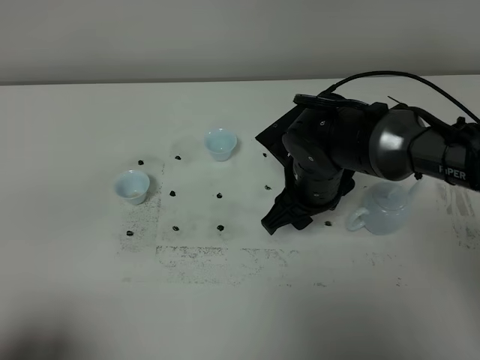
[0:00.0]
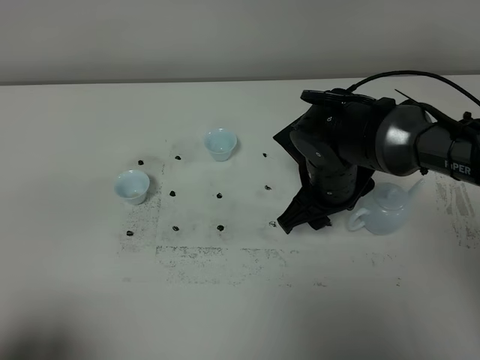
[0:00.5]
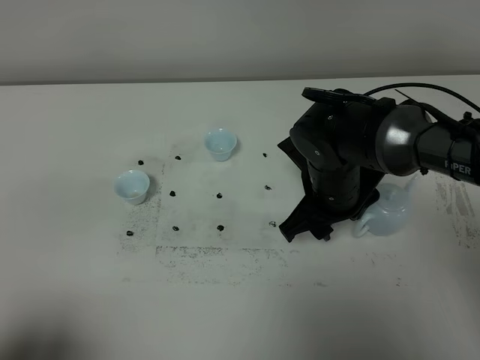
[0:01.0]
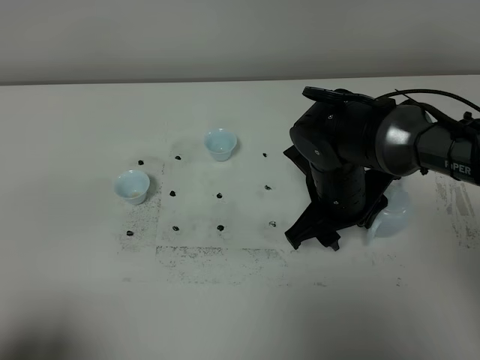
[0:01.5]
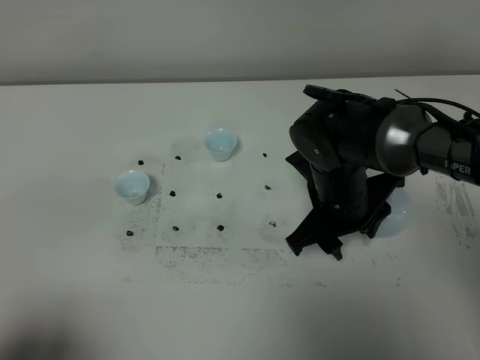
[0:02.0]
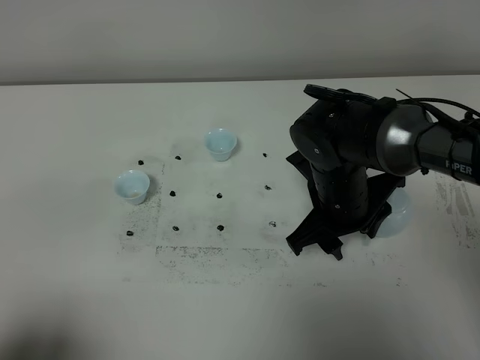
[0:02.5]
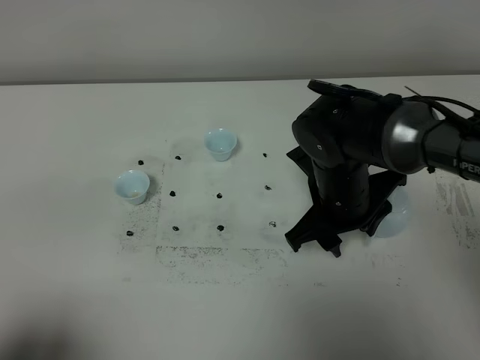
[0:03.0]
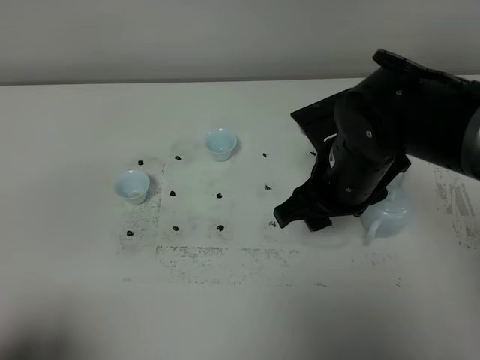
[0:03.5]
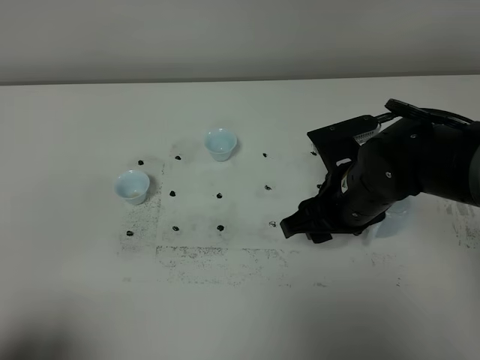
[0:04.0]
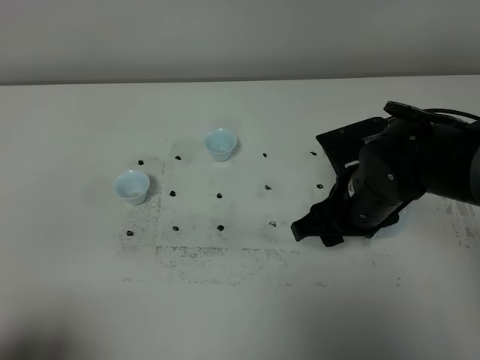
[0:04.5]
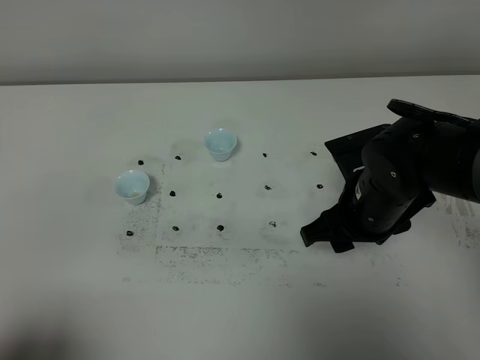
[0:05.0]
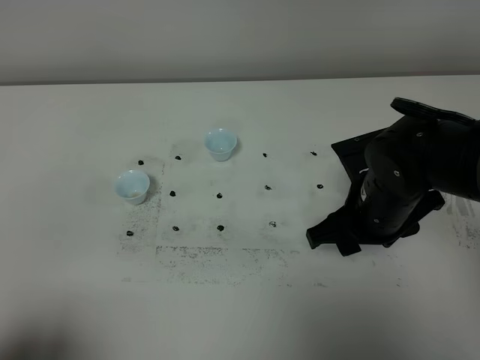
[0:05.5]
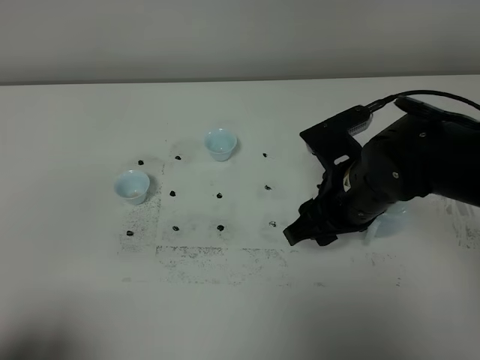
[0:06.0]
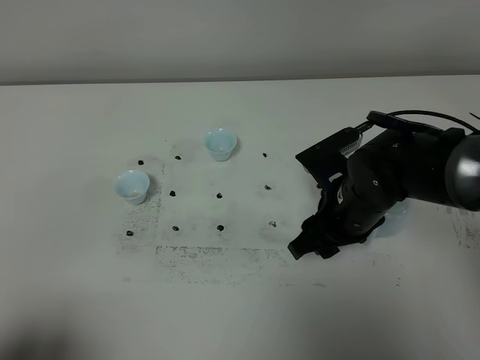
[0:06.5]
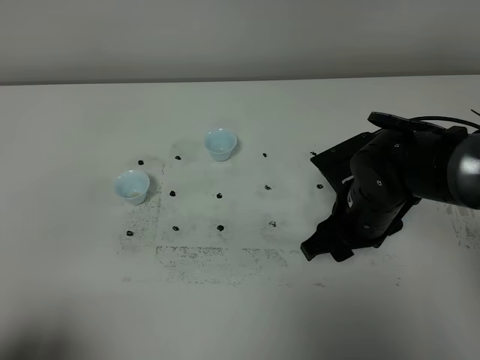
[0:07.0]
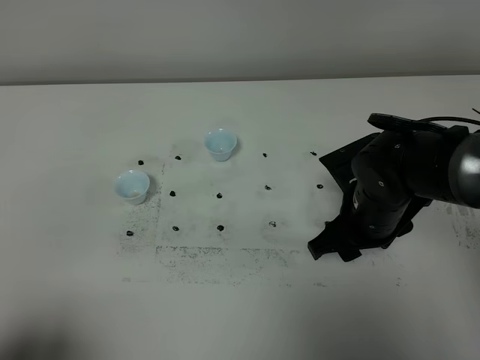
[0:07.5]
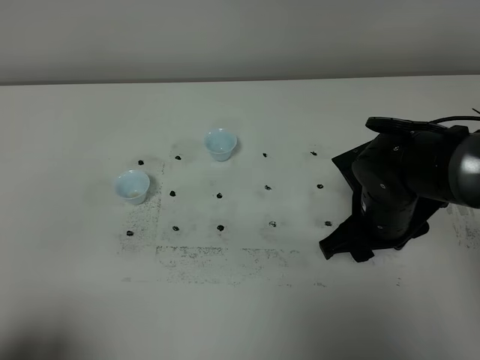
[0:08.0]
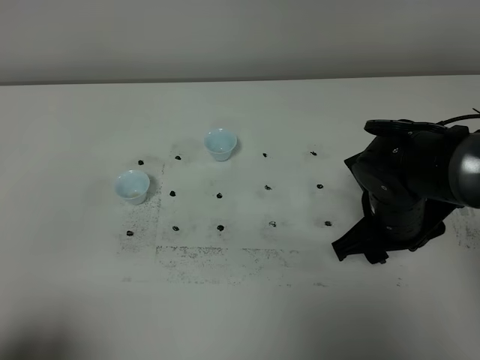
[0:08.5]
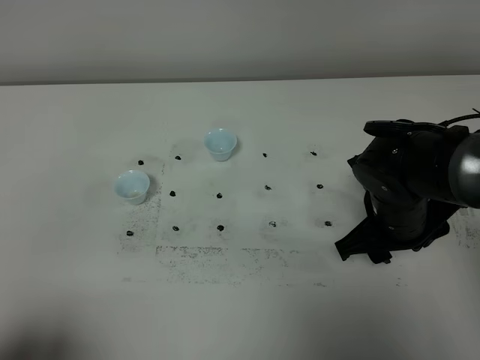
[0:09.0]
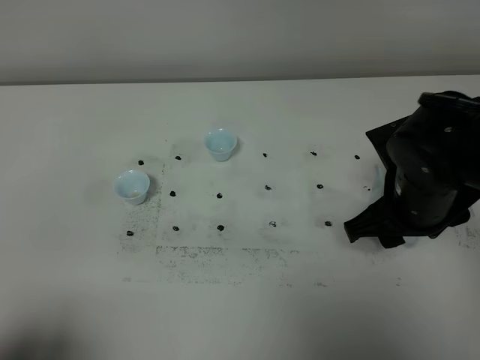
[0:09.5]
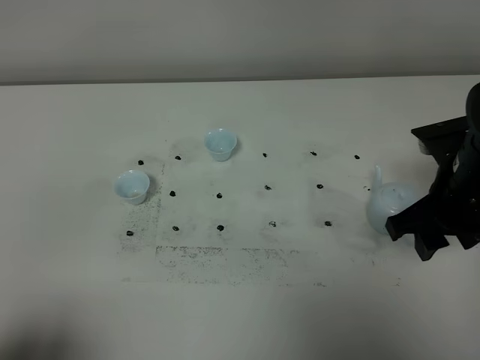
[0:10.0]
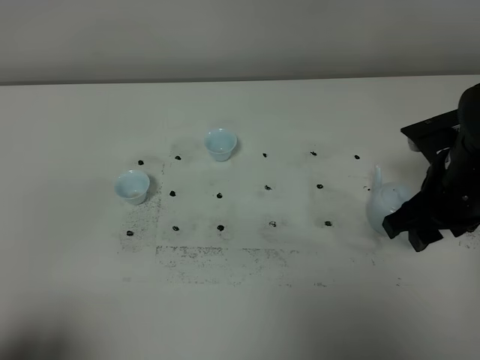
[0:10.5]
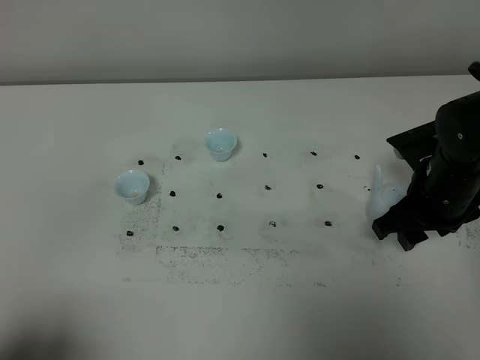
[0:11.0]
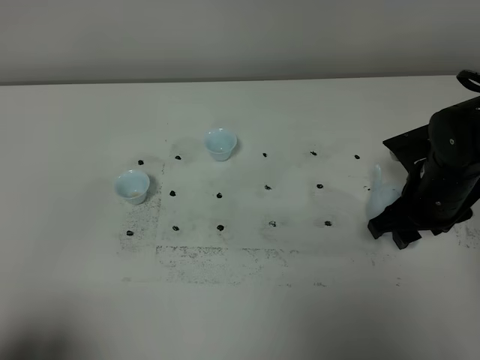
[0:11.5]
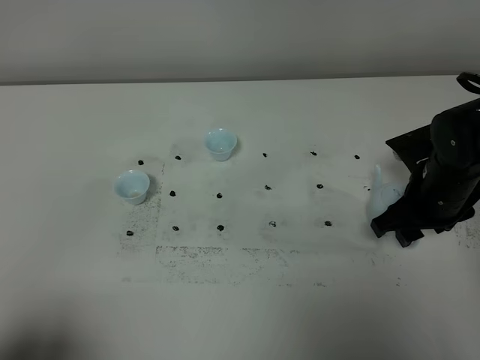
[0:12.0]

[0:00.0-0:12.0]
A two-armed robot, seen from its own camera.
Task of the whole recording: grasp the blue porcelain teapot and pour the tea into the two blue porcelain teacups one by one, put the blue porcelain teapot back in its original place.
0:00.0 to 0:02.0: The grippers move only a little.
0:04.0 to 0:06.0: There are only small adjustments of the grippers.
0:06.0 to 0:08.0: The right gripper changes place by about 5 cm.
0:08.0 to 0:10.0: The right gripper moves upward and to the right, roughly 10 cm.
0:10.0 to 0:12.0: The right gripper moves downward and forward, approximately 10 cm.

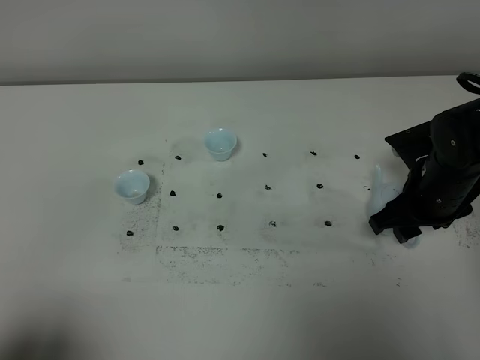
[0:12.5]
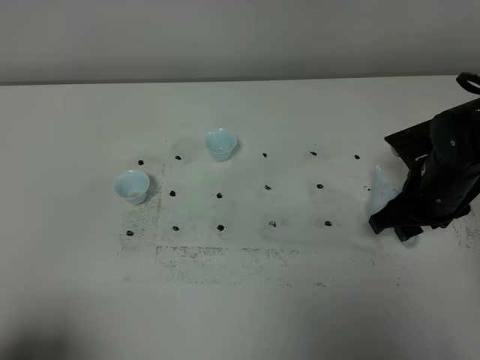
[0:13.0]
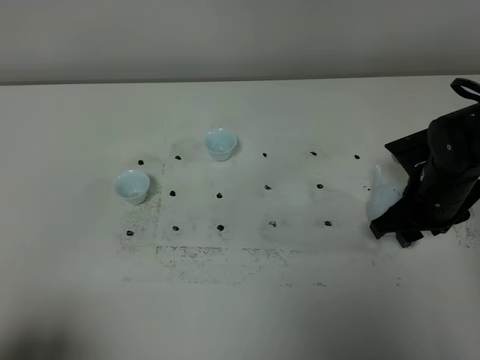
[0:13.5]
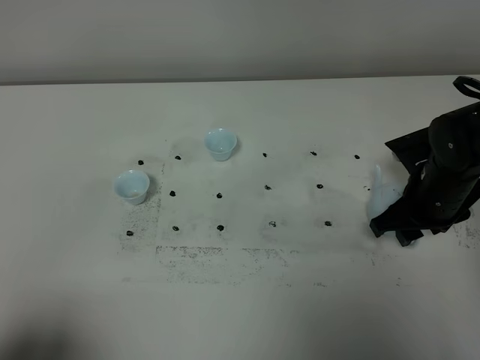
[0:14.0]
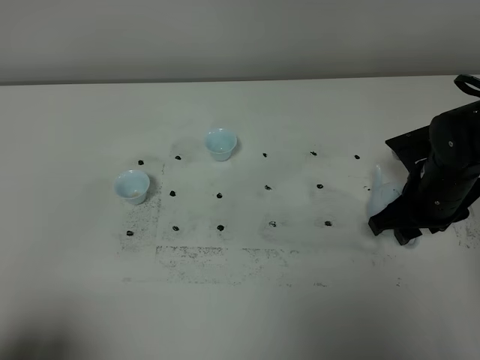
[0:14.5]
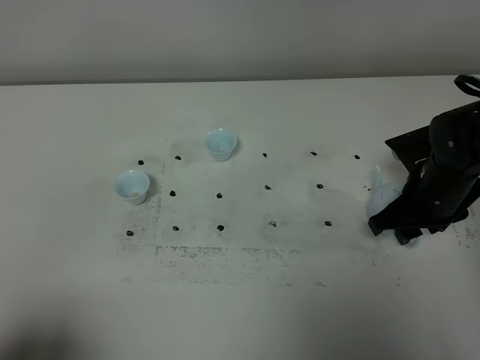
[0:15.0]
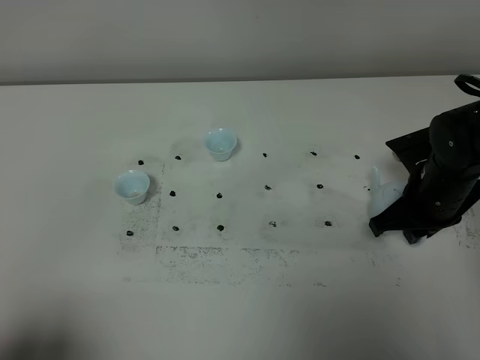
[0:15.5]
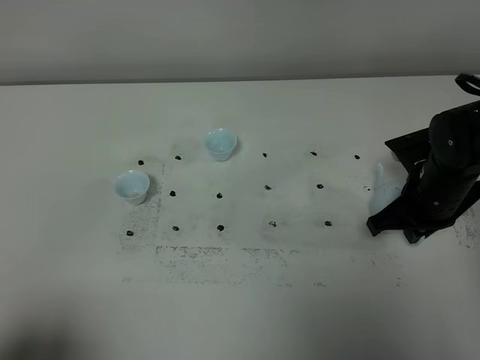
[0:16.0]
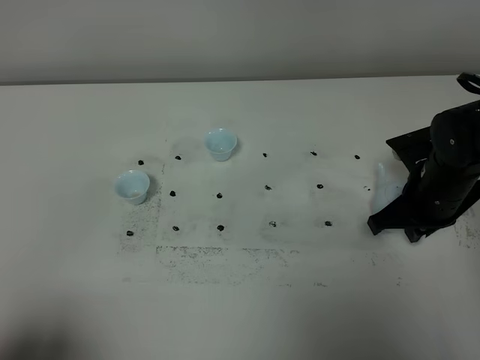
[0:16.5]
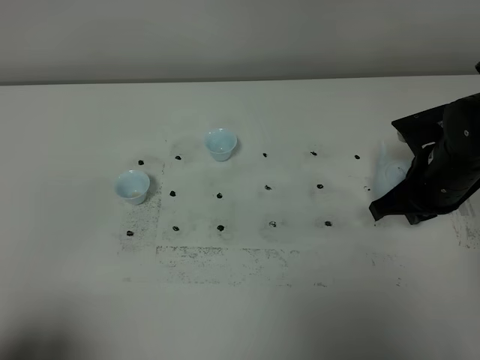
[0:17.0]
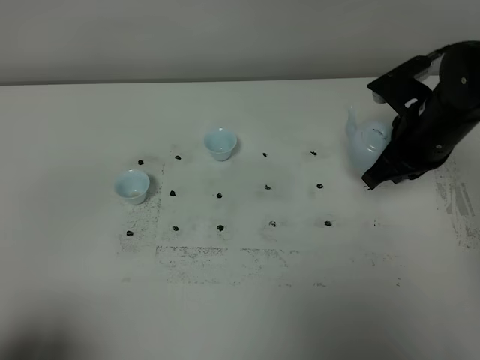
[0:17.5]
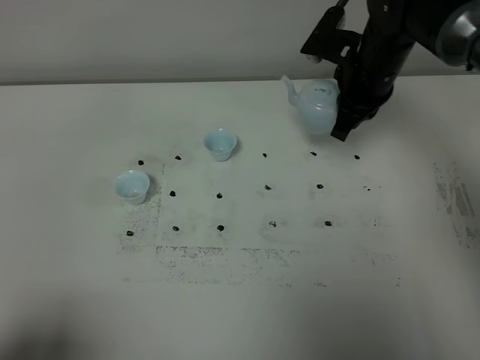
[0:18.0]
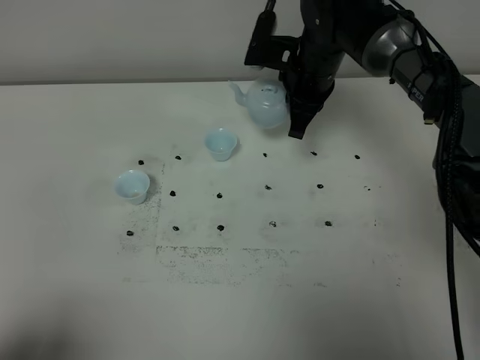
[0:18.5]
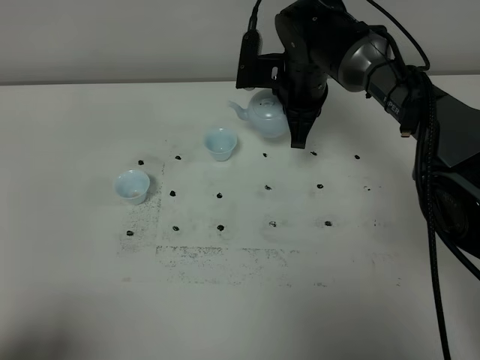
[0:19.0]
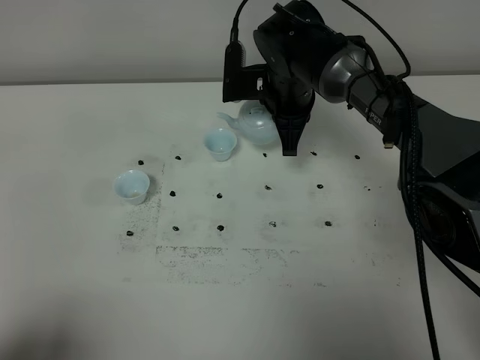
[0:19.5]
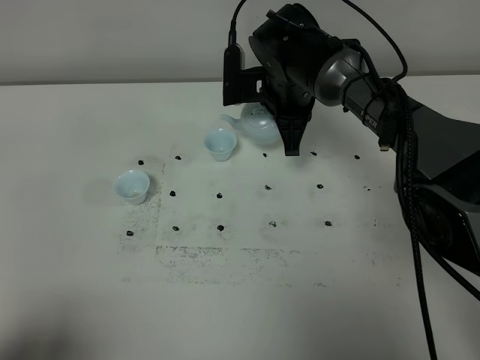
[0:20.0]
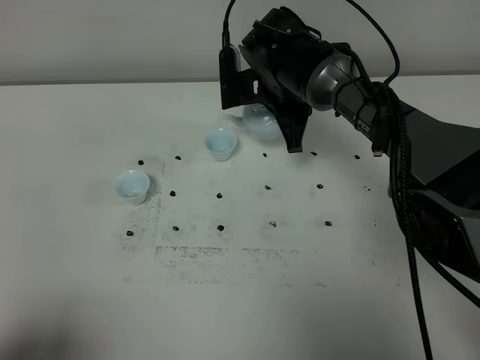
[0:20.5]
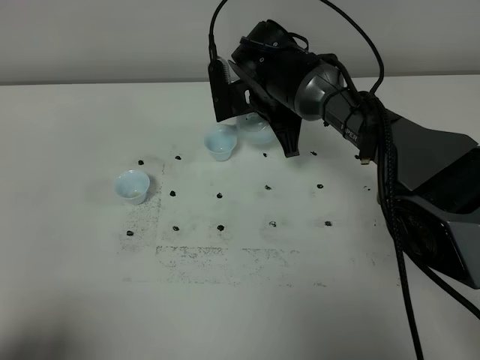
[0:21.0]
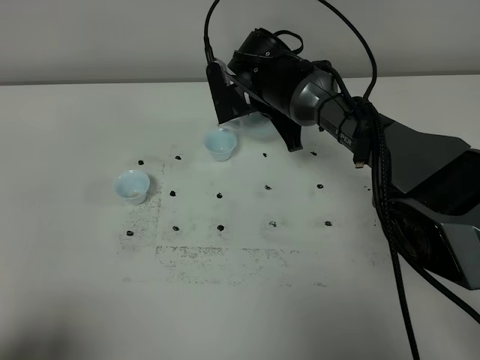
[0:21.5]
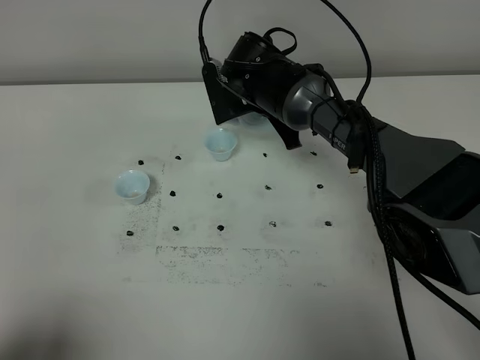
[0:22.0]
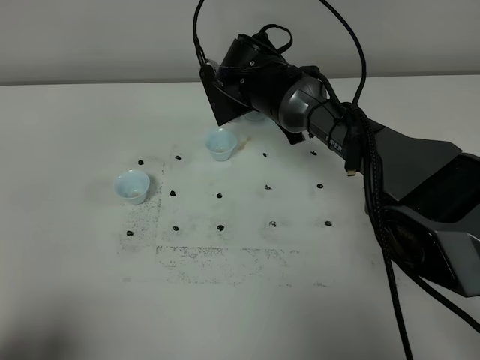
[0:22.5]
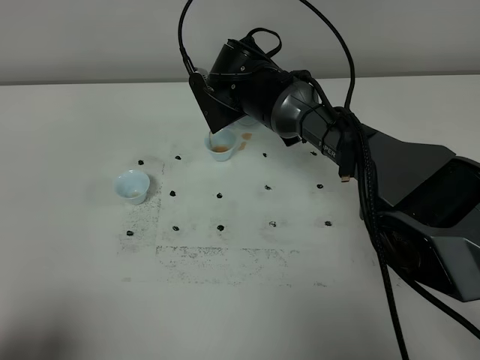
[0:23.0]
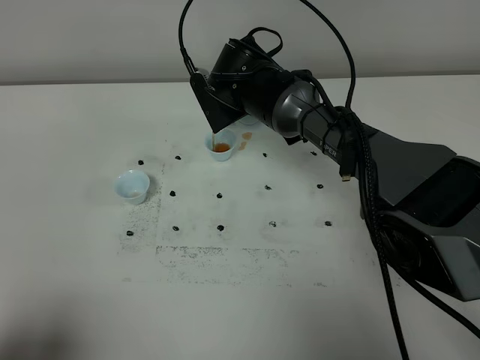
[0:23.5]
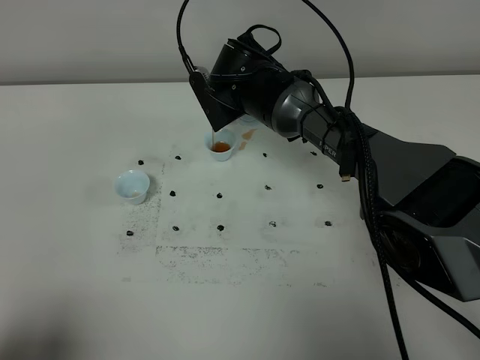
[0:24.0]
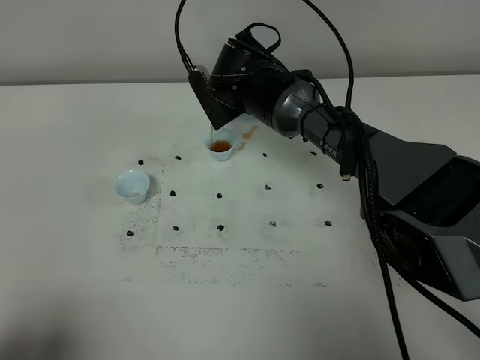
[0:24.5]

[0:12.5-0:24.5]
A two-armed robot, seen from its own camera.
Task of the whole recording: grasp the blue porcelain teapot and pour the tea into the two blue porcelain teacups one by one, put the blue porcelain teapot back in its original place.
Step, 0:12.5 to 0:17.0: Pick up the teapot with the right gripper.
0:12.5 to 0:14.5: Both grippers stay about where they are.
0:14.5 to 0:16.5: The right gripper closes up.
0:16.5 to 0:18.5: The right gripper moves forward, to the left and upward, some 20 cm.
0:22.5 to 0:24.5: The grippers move only a little.

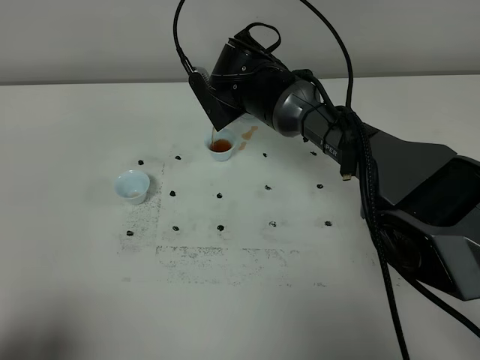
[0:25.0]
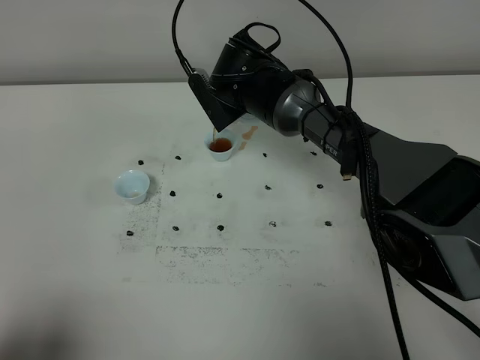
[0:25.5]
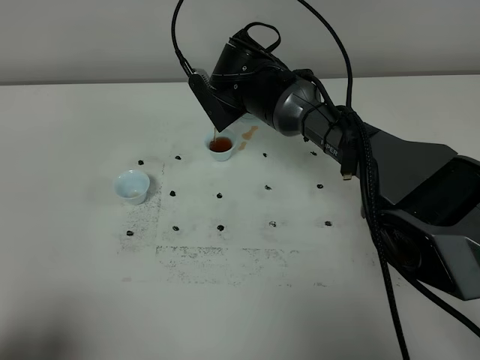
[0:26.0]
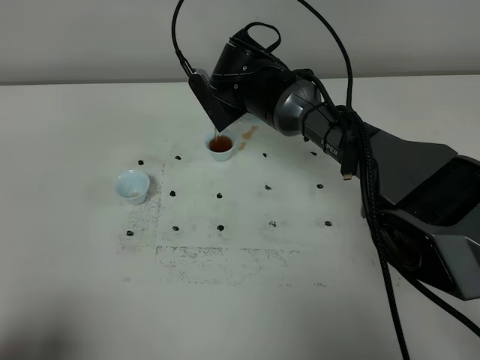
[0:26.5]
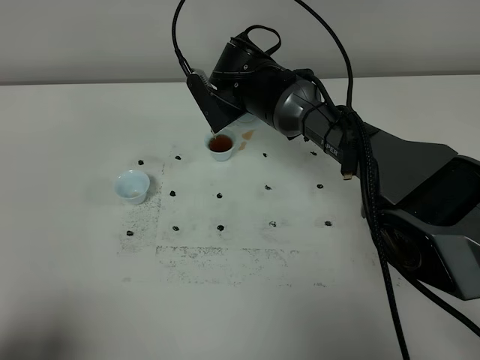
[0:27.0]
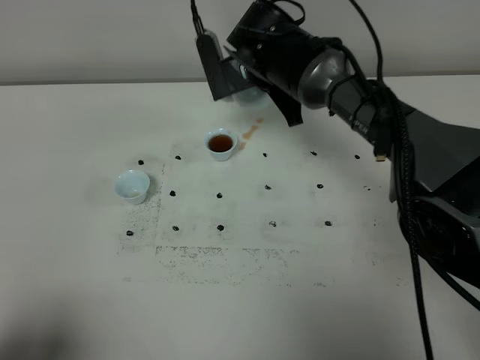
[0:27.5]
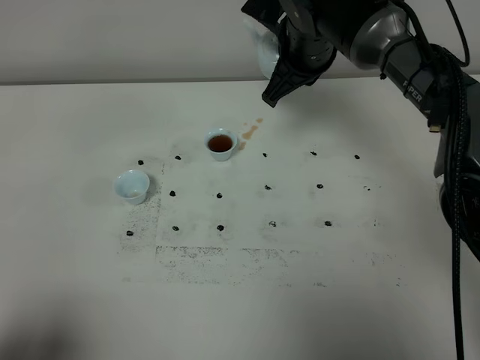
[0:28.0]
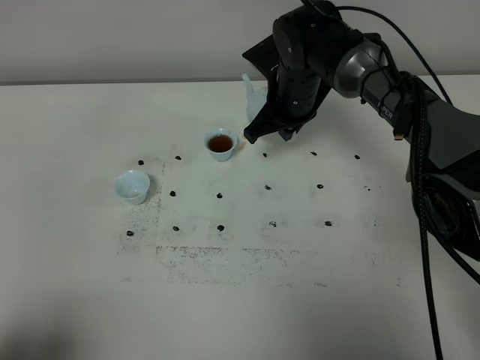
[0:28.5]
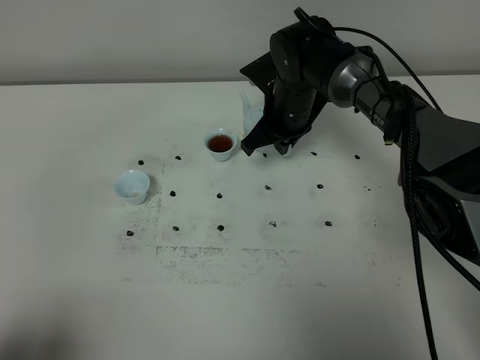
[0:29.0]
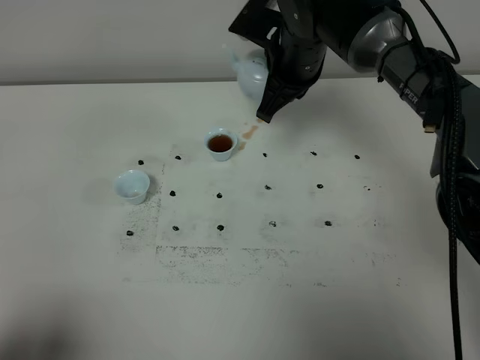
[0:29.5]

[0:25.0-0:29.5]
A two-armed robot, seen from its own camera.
Task of the whole recording: grasp the blue porcelain teapot and pour the tea into the two blue porcelain teacups one by one, put the blue porcelain teapot back in its original place.
0:25.0 to 0:27.0: Both grippers stay about where they are.
0:27.0 to 0:29.5: The right gripper goes up and down, about 10 cm each way, reversing 2 times.
